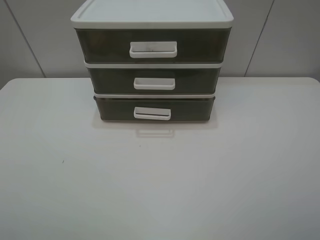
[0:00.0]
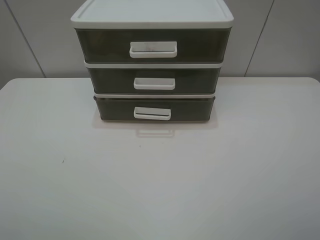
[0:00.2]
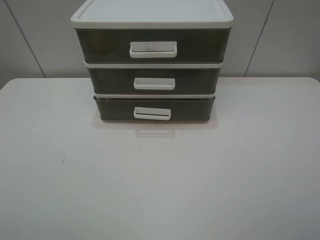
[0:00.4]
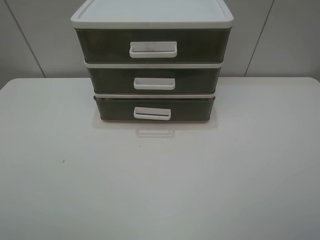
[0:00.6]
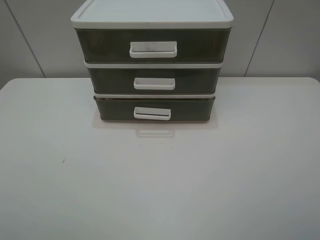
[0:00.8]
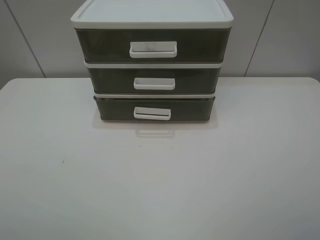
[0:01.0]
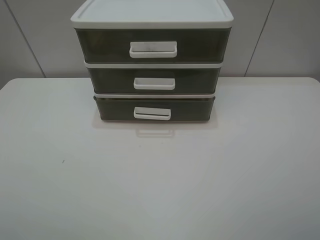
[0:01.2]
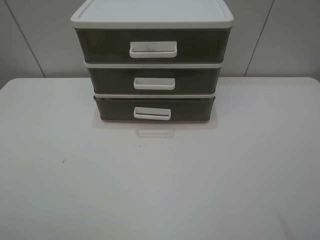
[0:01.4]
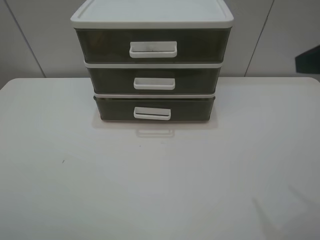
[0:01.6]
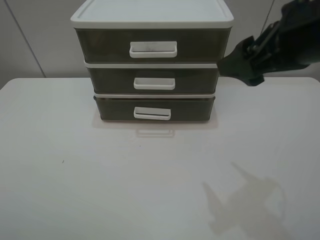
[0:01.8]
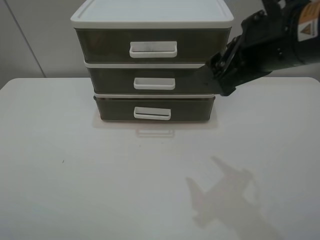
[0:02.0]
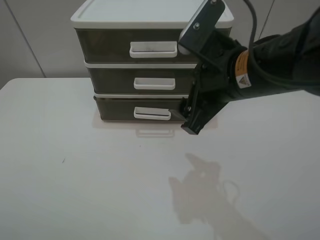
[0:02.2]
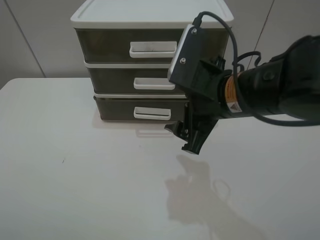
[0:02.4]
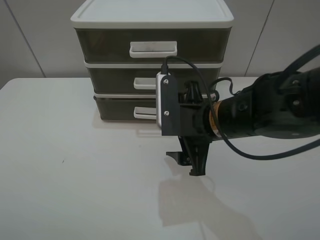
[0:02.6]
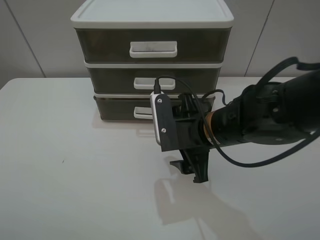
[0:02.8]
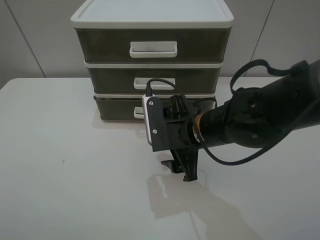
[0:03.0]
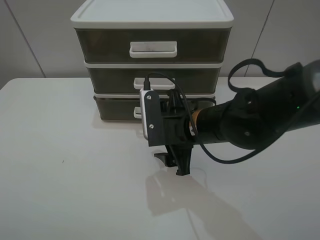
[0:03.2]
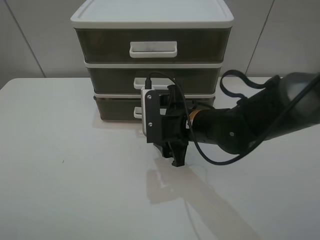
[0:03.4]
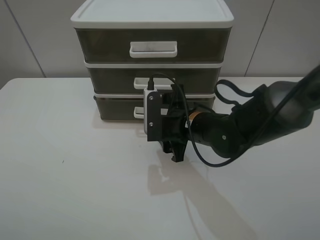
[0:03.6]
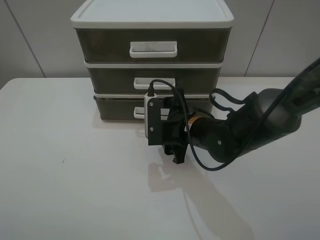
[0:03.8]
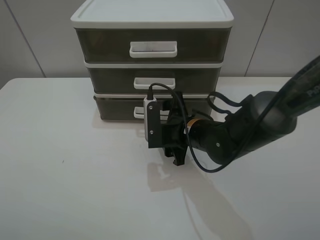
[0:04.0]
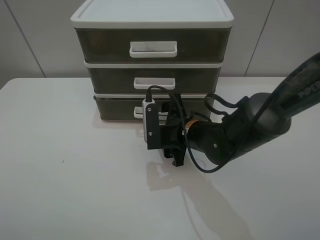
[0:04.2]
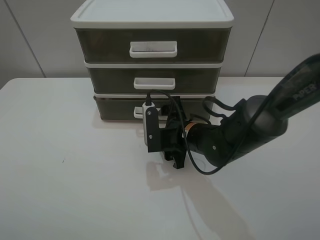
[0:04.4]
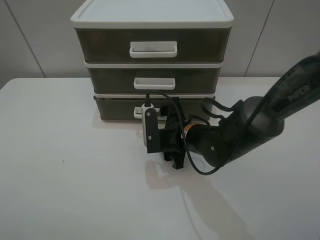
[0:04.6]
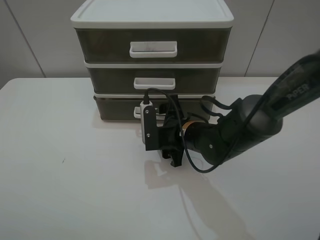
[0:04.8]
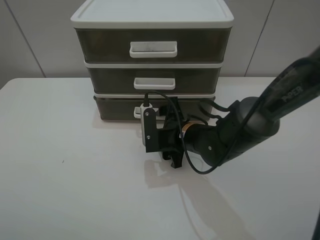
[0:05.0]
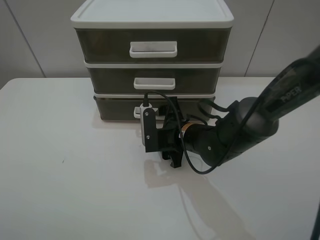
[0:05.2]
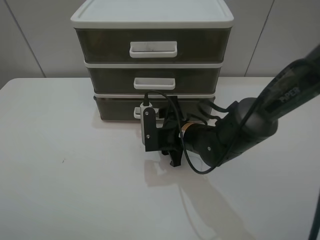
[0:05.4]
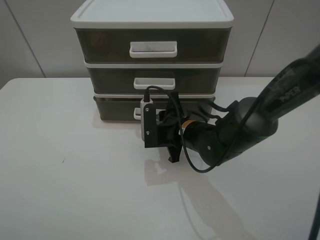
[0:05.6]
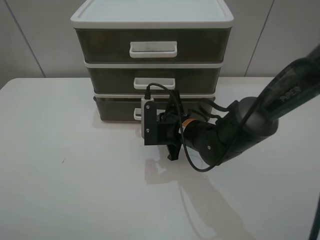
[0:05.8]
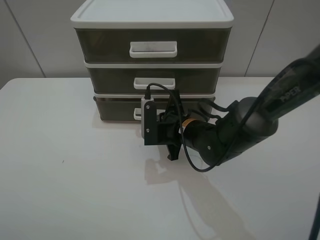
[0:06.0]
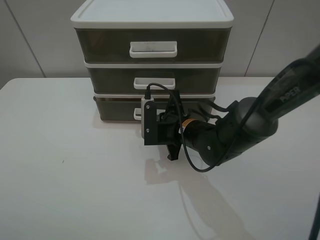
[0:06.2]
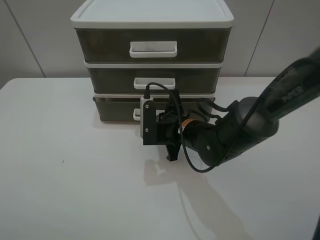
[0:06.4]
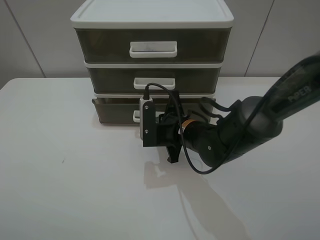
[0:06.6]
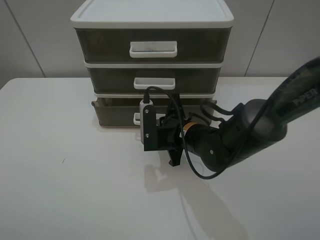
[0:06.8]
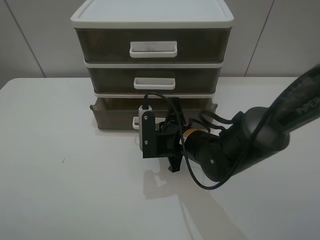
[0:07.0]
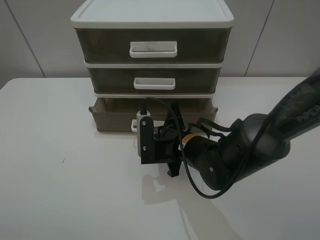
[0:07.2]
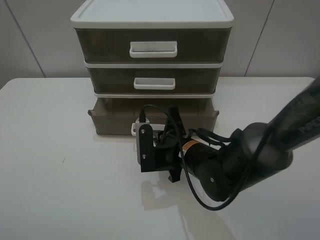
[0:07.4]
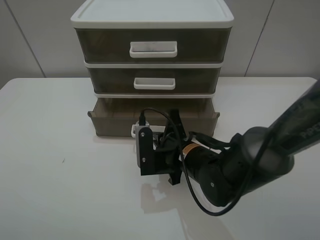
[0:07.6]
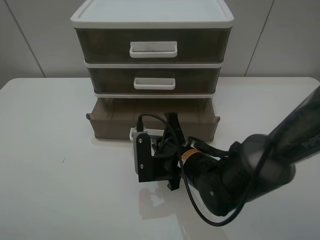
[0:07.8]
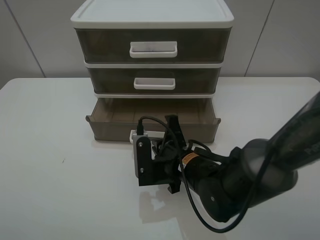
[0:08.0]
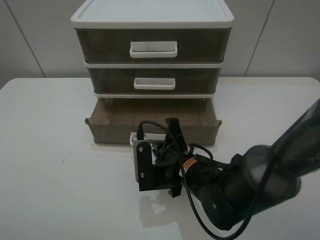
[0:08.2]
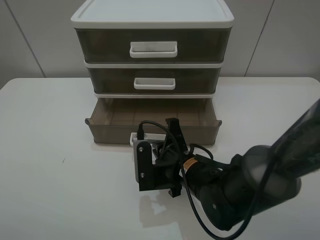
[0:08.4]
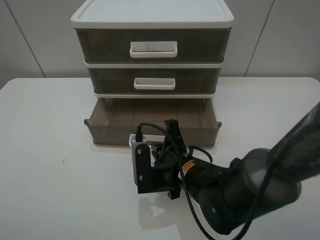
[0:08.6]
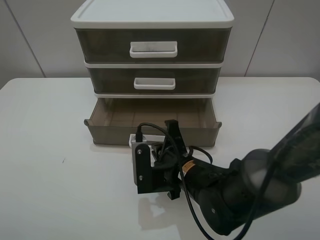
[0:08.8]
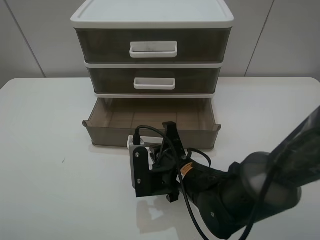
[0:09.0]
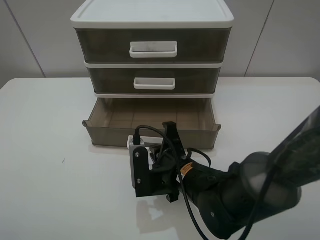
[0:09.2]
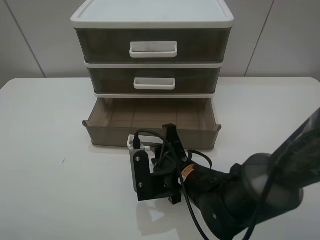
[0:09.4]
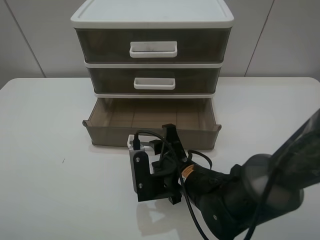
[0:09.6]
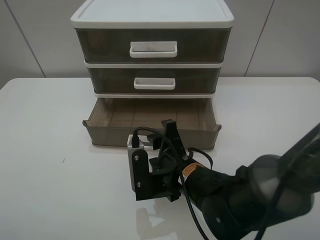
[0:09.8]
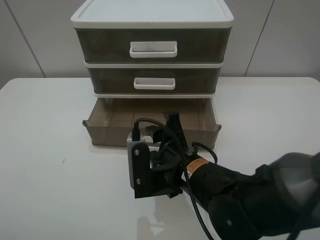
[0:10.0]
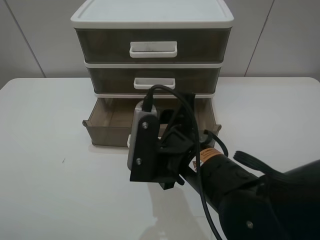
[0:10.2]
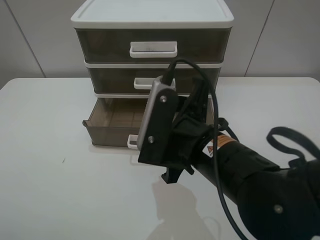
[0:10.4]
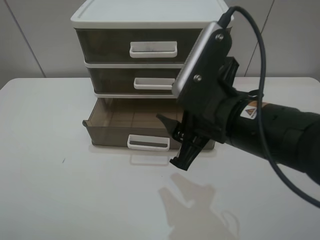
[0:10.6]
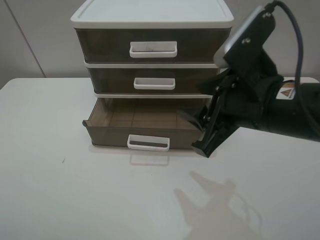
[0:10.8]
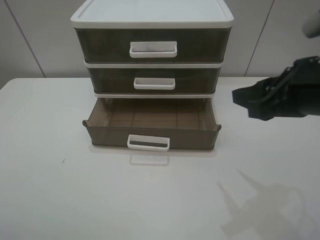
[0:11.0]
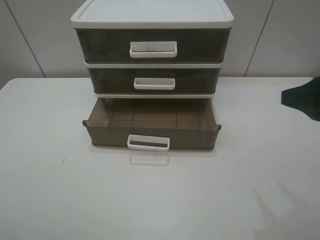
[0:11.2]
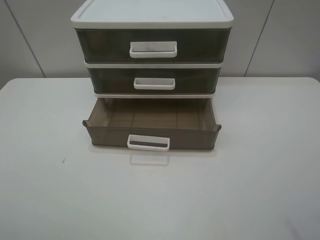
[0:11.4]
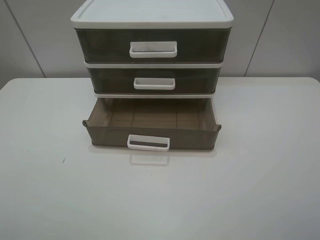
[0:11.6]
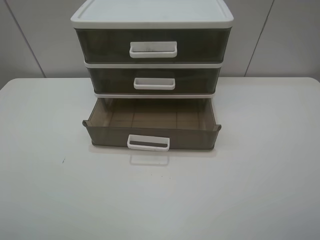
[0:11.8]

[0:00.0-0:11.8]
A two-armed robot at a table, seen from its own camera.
Task of the whole recording: open the bottom drawer.
Step, 0:00.0 to 0:06.2: Grab the bottom drawer with the right gripper.
Step, 0:06.4 to 0:10.0: Pull open the drawer with the right gripper.
0:01.4 to 0:03.0: The right gripper is displaced downward, to the left and forward by roughly 30 cm.
0:03.0 to 0:04.4: The right gripper heads downward, covering roughly 5 cm.
0:04.4 to 0:06.0: The right gripper closes up.
0:06.0 to 0:07.4: The right gripper travels backward by about 5 cm.
0:07.4 to 0:08.8: The grippers make only small movements.
0:08.8 to 0:10.4: The right gripper travels upward by approximately 10 cm, and opens up.
0:10.4 to 0:11.8: The right gripper travels to the right, backward and upward by some 30 cm.

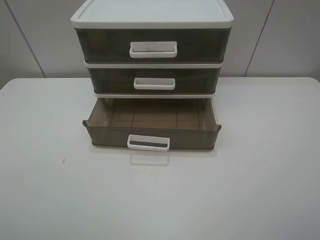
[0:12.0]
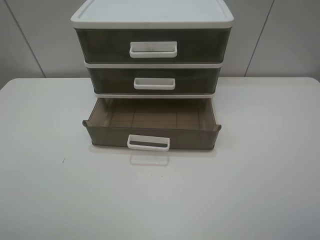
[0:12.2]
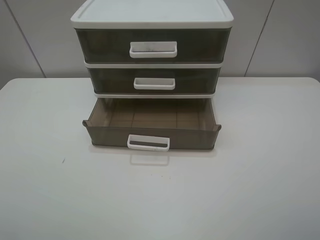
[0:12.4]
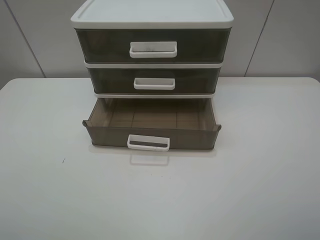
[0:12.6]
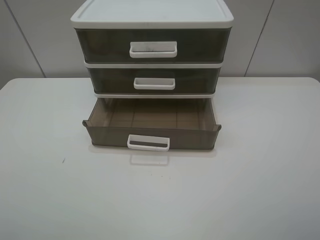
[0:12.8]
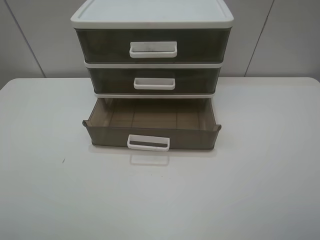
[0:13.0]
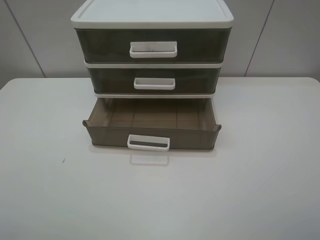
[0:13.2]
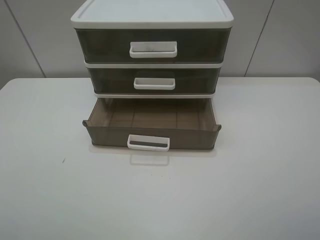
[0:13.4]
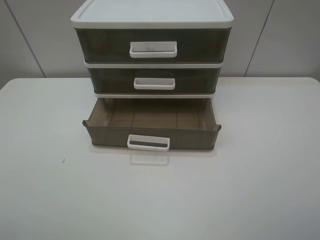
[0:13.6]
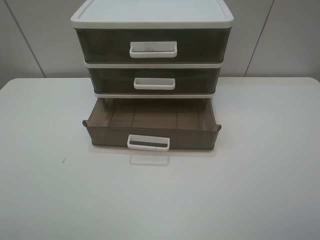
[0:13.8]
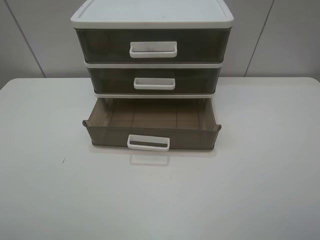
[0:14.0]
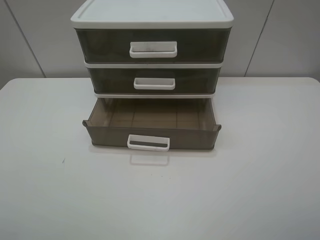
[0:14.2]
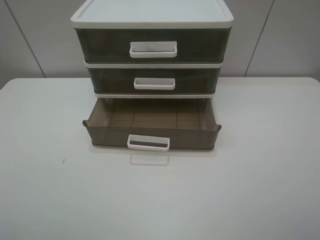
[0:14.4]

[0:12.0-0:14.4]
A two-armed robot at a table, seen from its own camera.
Task of the whole recording: open the bottom drawer.
0:13.2 to 0:14.4: Neither gripper changes place.

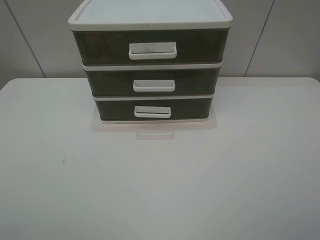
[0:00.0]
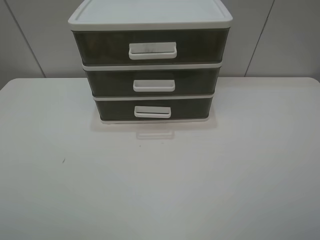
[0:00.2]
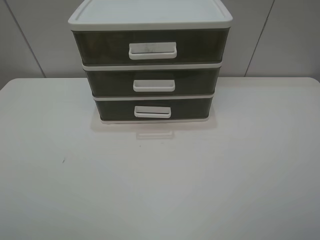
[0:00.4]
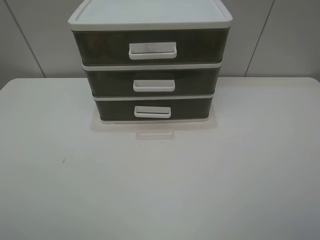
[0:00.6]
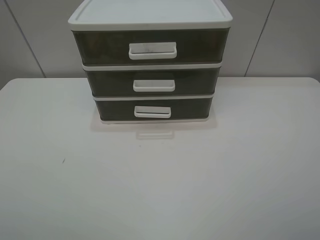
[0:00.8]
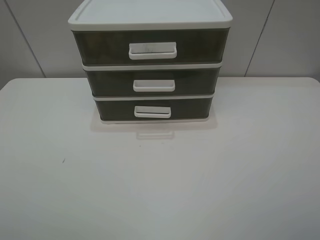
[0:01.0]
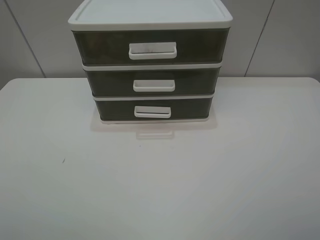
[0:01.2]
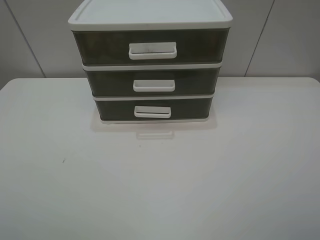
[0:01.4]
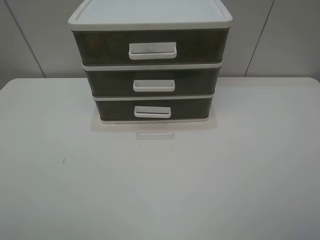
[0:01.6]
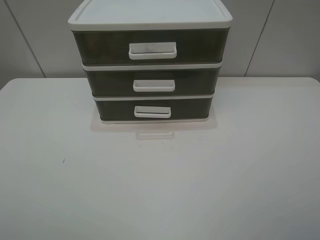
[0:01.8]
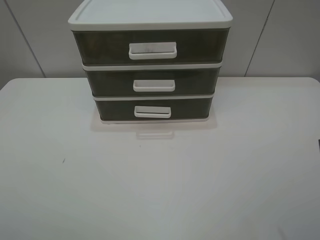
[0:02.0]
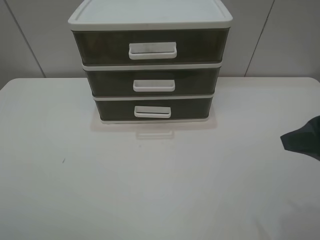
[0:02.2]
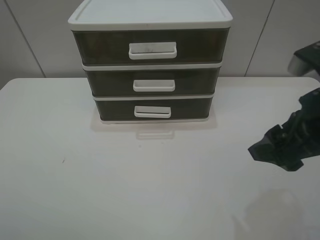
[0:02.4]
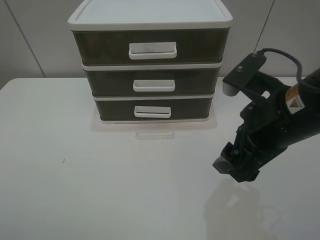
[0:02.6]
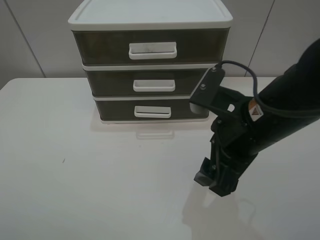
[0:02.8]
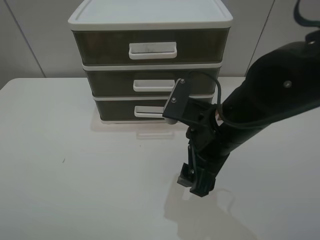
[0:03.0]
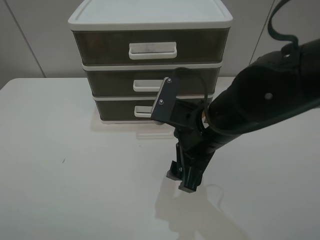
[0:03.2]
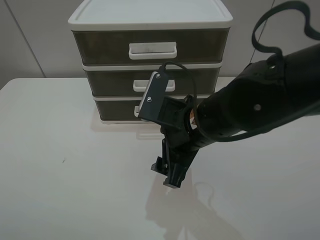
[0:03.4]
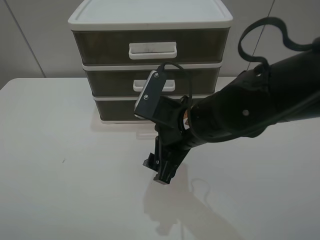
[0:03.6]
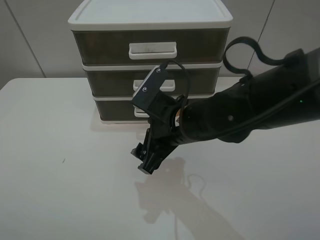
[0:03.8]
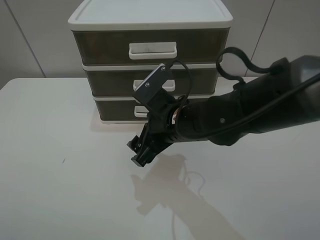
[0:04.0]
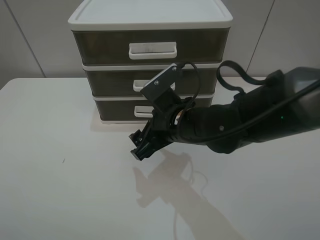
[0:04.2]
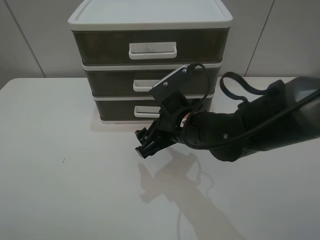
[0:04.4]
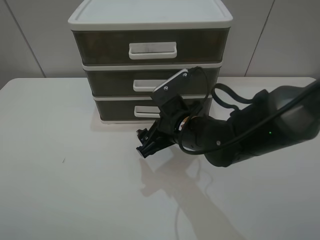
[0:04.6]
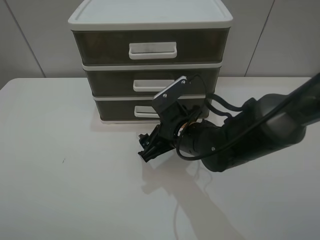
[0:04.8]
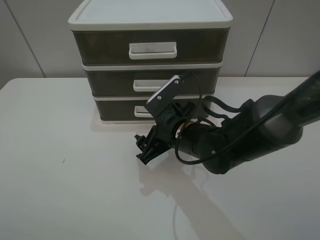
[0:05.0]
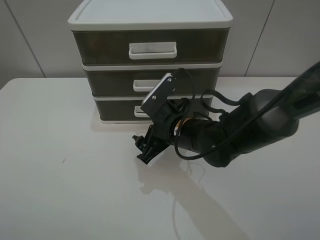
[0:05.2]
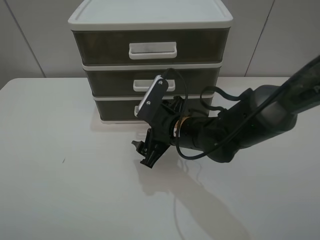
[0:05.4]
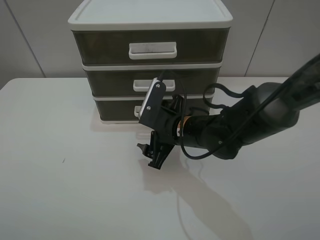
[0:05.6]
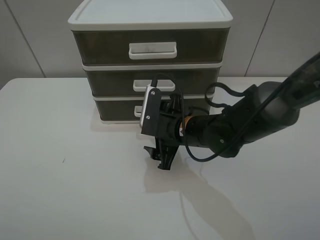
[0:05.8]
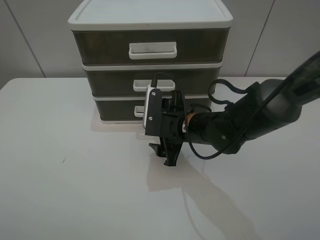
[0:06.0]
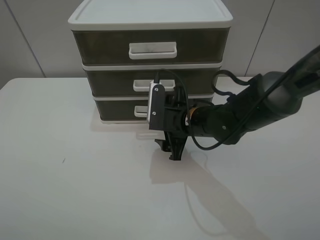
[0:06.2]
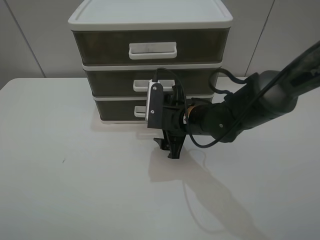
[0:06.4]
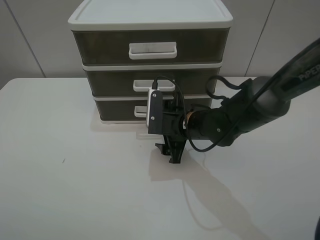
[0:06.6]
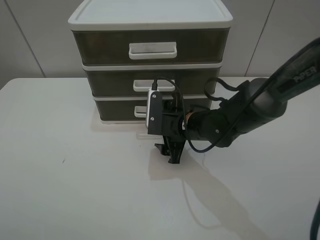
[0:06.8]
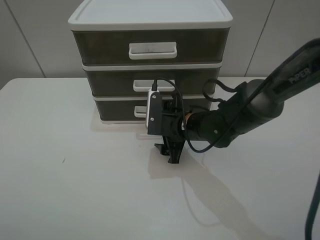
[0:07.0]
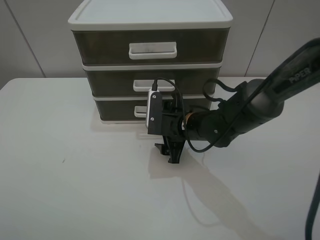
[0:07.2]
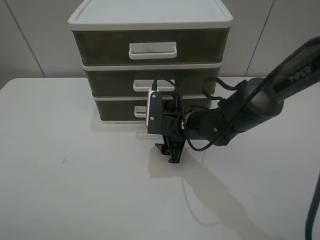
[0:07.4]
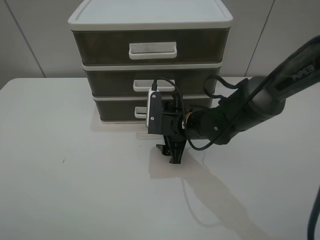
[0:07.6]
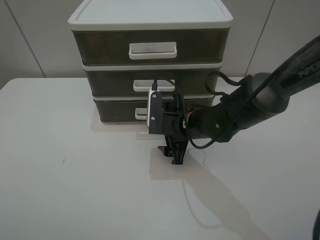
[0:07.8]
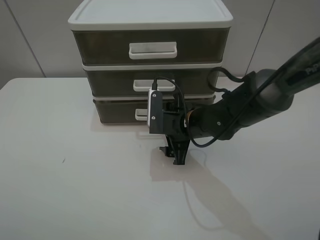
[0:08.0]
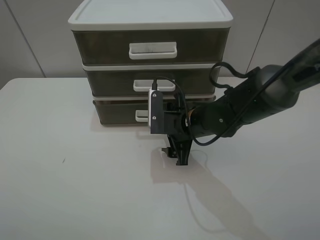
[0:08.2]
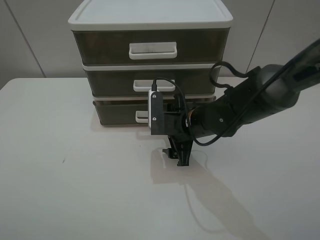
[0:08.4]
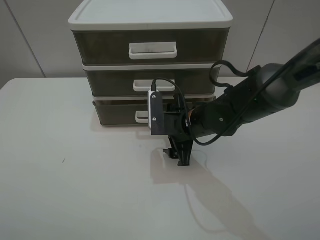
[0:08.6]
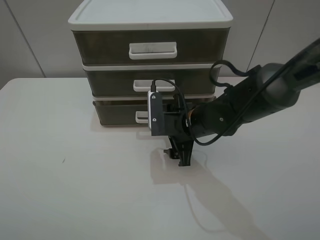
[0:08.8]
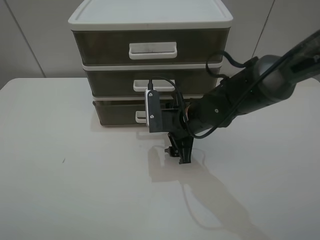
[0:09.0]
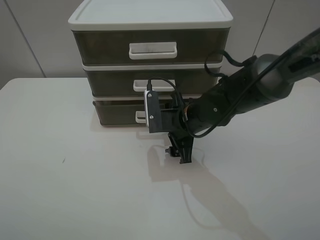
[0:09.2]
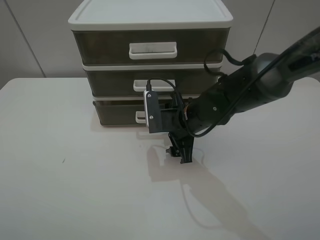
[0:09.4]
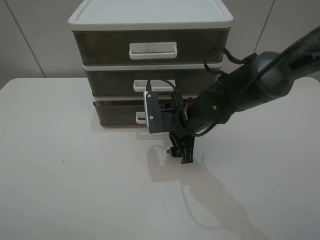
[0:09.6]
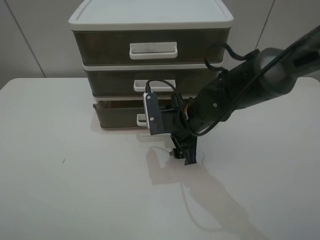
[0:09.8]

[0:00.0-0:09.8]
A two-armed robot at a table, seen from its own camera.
Task of the whole recording: open the bottom drawer.
Step, 0:00.0 to 0:06.8: Grab the bottom drawer with the right gripper.
0:00.0 to 0:01.4: Both grippers stay put.
0:01.4 to 0:02.8: The right gripper goes some 25 cm forward, to the left and downward.
0:02.8 to 0:04.2: The right gripper is displaced to the left, downward and forward by approximately 10 cm.
0:05.6 to 0:07.0: There are only small adjustments of the grippers.
0:07.0 to 0:08.4: There are only small adjustments of the grippers.
0:08.4 to 0:09.8: The grippers make only small movements.
